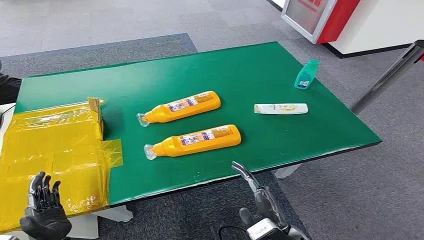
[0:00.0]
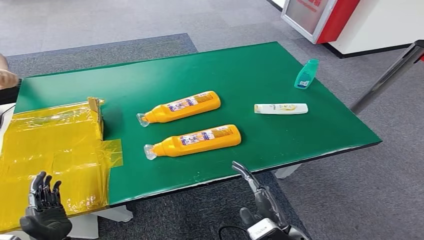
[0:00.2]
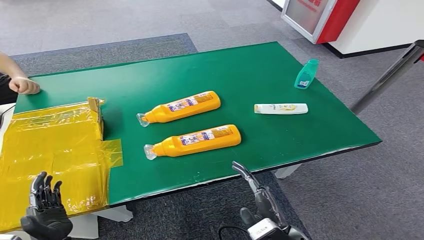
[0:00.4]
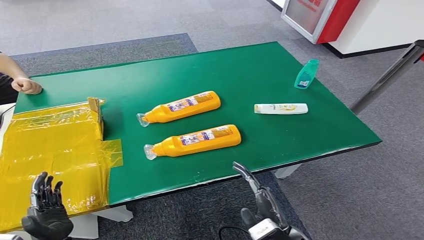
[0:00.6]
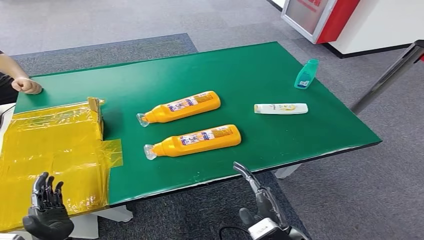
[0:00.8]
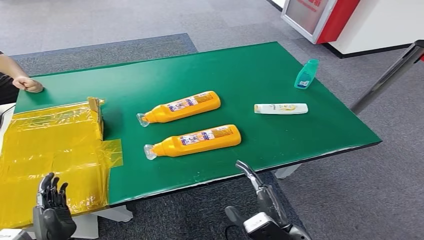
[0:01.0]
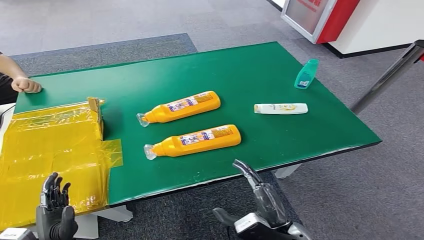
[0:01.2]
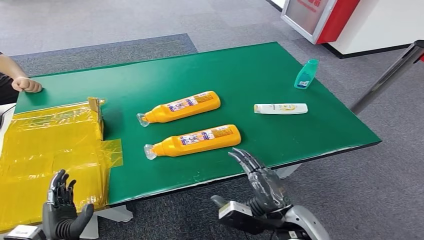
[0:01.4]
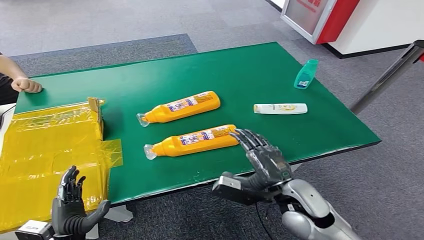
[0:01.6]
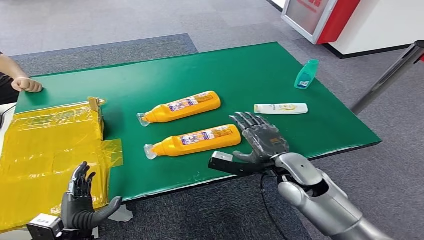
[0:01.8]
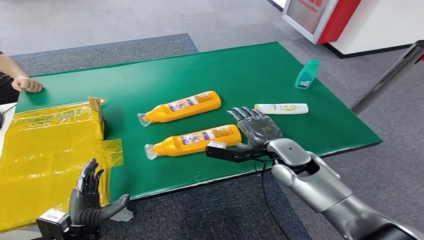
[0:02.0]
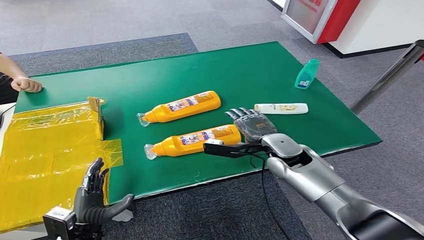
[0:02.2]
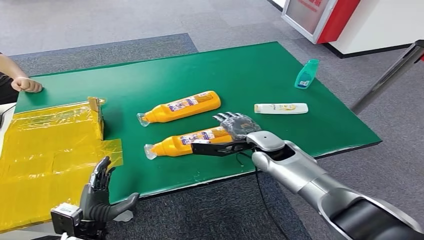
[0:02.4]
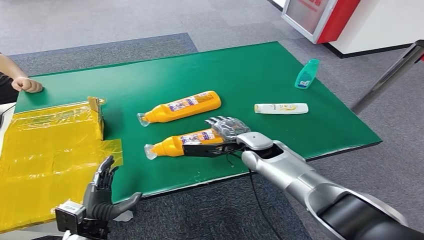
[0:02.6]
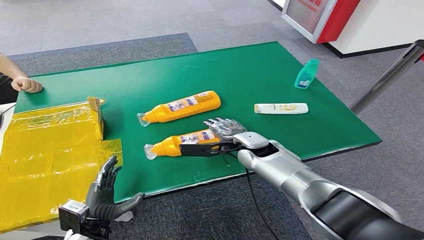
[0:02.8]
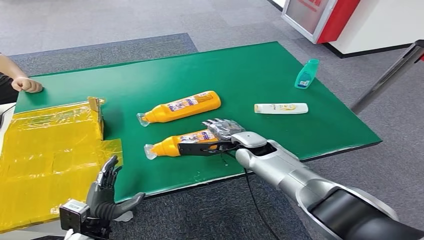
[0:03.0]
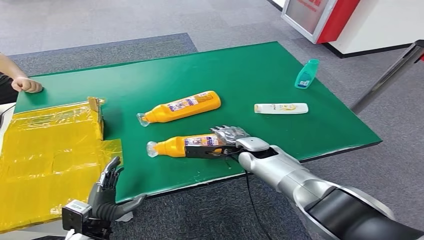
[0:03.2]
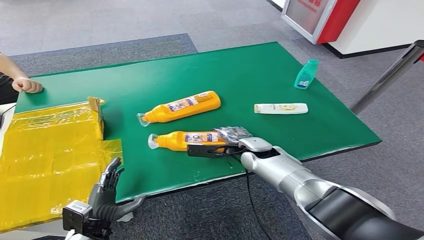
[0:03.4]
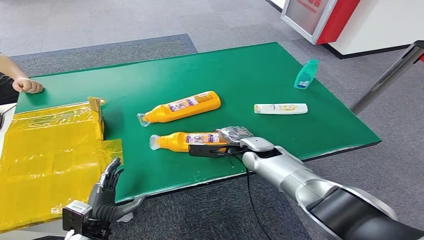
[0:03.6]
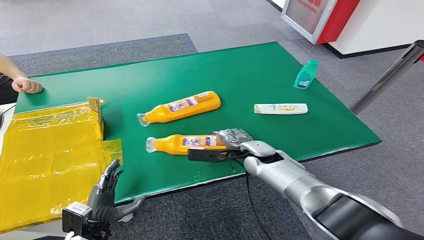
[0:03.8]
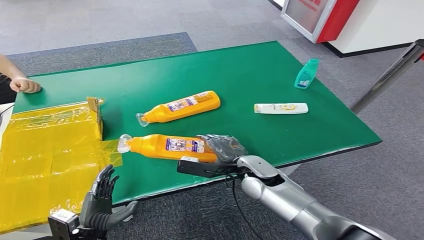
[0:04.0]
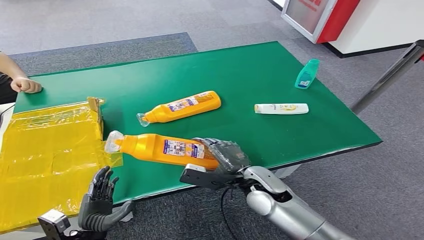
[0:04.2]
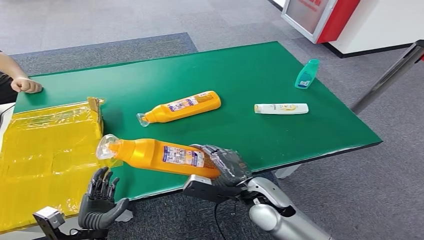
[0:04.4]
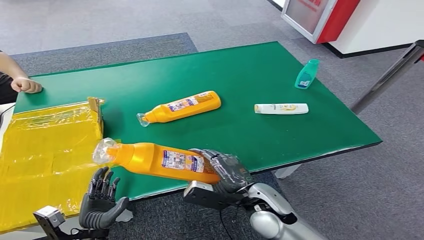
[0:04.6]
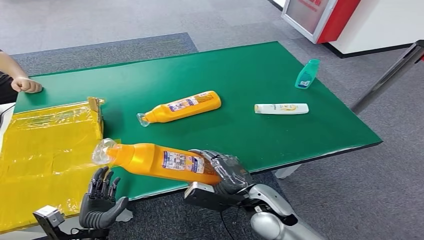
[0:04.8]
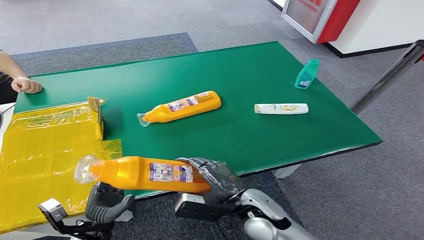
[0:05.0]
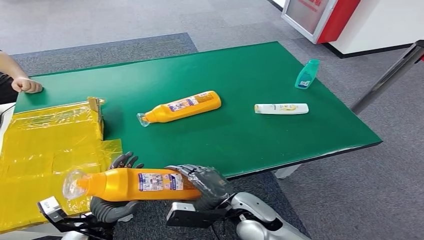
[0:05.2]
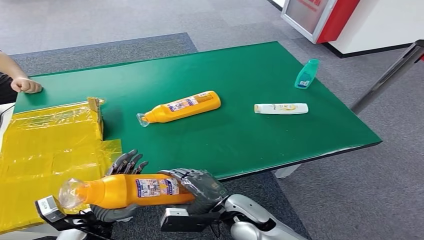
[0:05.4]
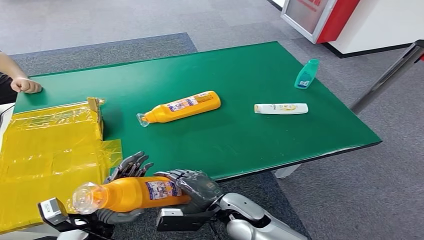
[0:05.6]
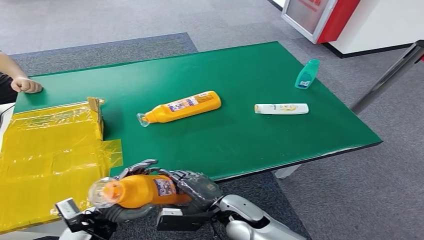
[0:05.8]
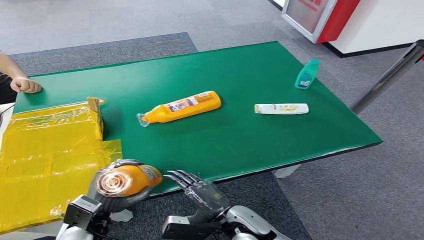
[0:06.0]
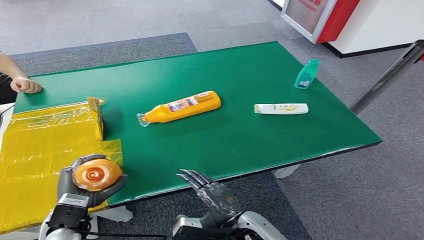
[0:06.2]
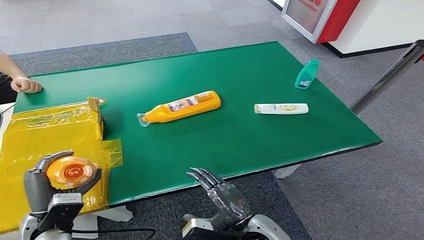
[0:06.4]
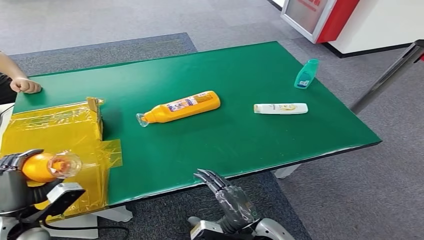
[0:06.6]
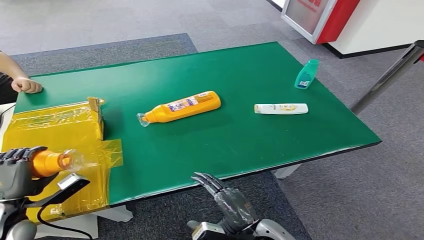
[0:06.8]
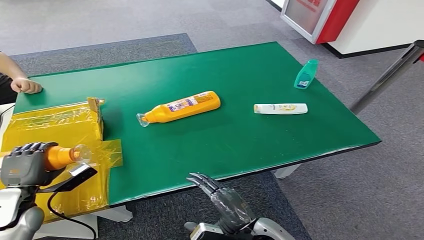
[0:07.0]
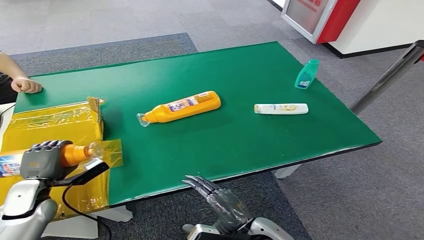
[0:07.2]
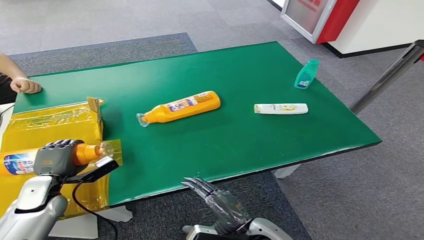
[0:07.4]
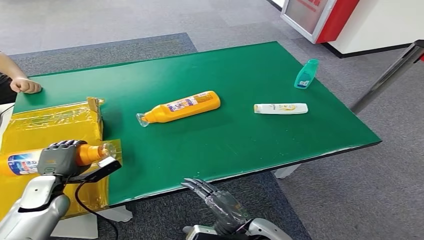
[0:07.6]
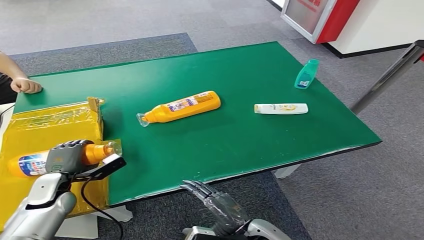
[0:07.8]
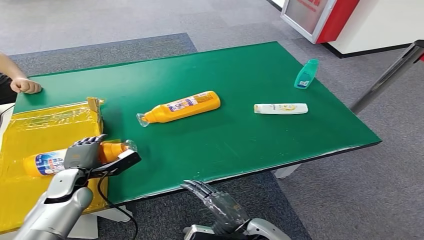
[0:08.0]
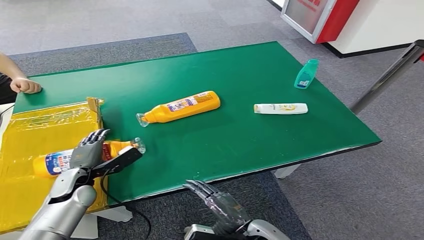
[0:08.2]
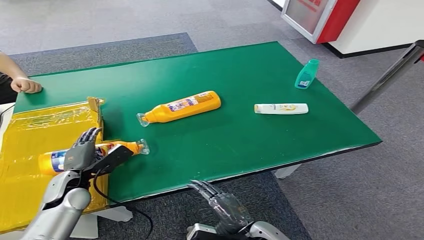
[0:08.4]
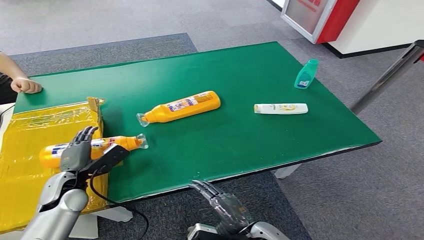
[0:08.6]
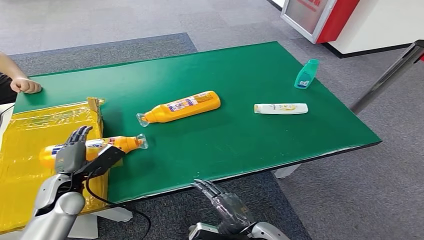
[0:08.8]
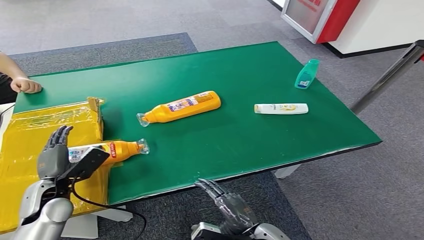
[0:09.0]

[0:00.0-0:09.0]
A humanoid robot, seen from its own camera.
Step, 0:00.0 to 0:04.8: Pick up the bottle from the table.
Step, 0:05.0 to 0:09.0: Turn the bottle to the front side.
0:01.6 to 0:03.0: The left hand moves approximately 5 cm; the right hand is displaced forward and to the left by some 20 cm.
0:03.0 to 0:04.4: The right hand shifts some 15 cm backward.
0:04.4 to 0:06.0: The right hand heads backward and downward, covering about 10 cm, while the left hand shifts approximately 5 cm upward.
0:06.0 to 0:07.6: The right hand changes place by some 5 cm; the left hand goes approximately 15 cm to the left and forward.
0:07.6 to 0:09.0: The left hand moves roughly 5 cm.

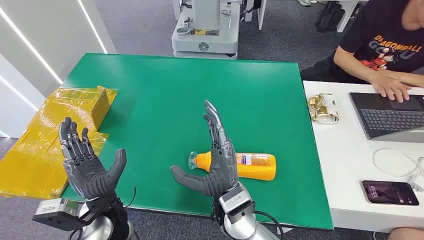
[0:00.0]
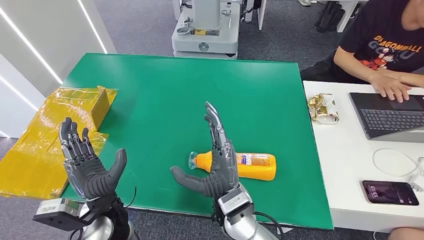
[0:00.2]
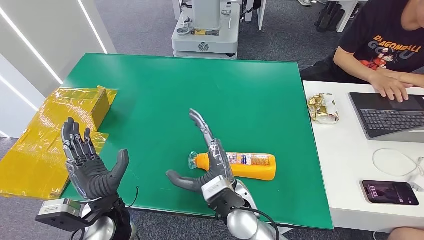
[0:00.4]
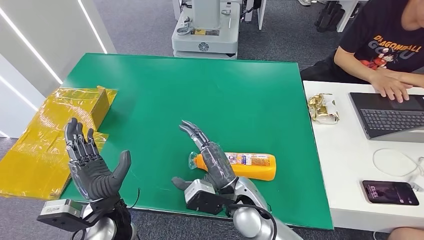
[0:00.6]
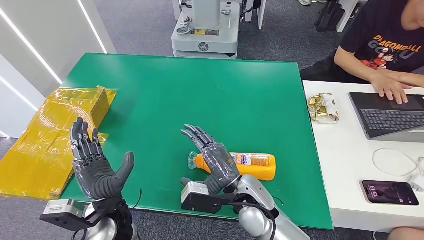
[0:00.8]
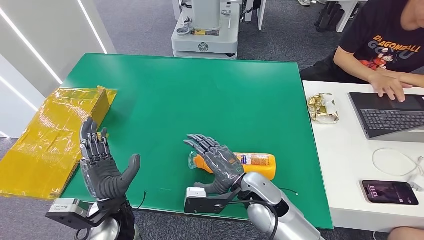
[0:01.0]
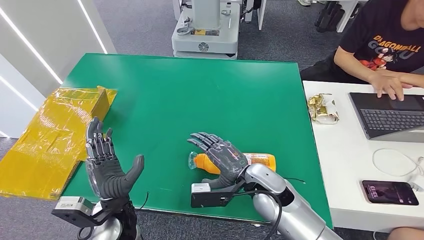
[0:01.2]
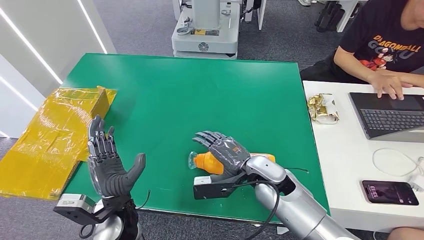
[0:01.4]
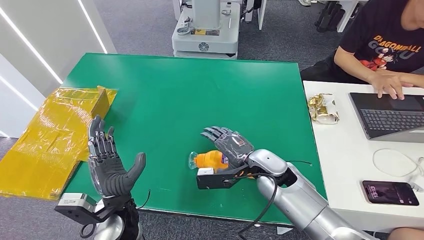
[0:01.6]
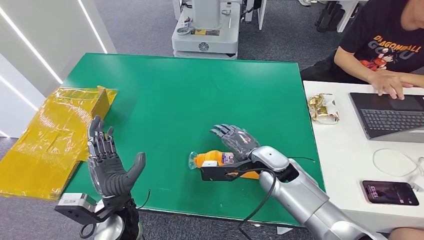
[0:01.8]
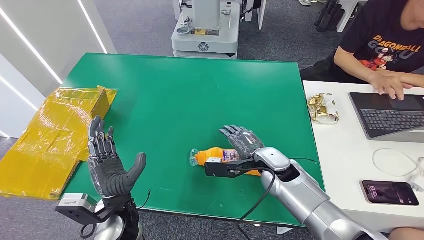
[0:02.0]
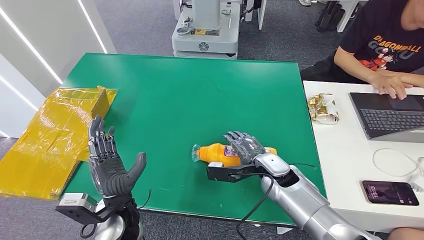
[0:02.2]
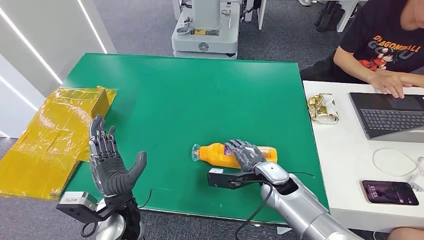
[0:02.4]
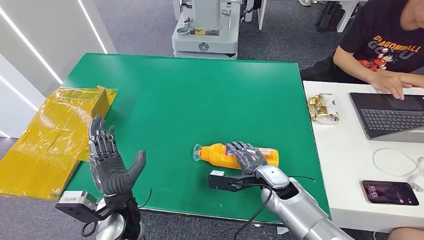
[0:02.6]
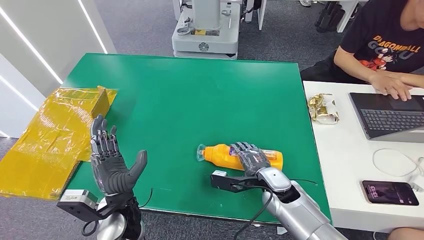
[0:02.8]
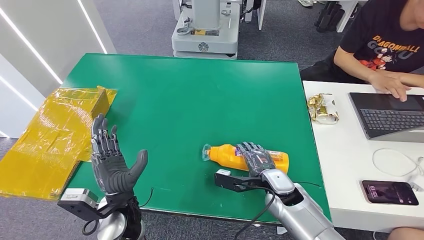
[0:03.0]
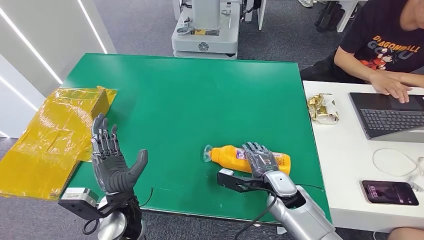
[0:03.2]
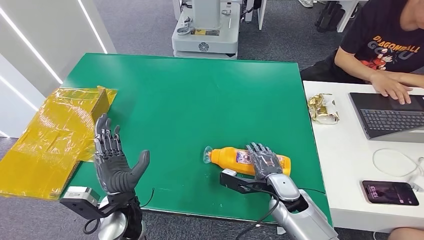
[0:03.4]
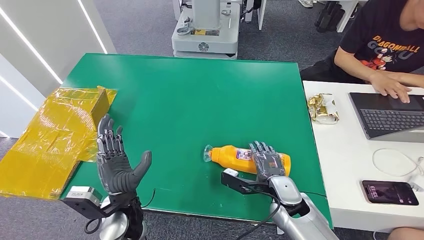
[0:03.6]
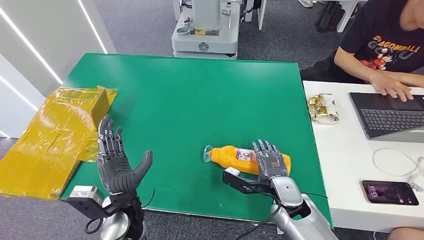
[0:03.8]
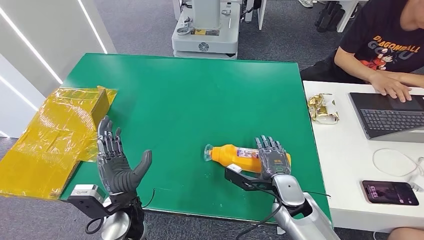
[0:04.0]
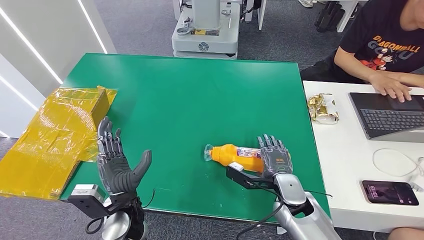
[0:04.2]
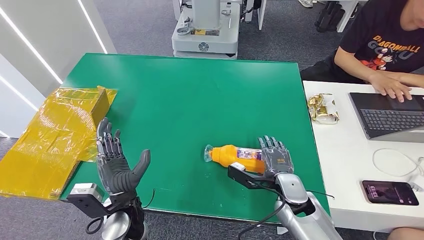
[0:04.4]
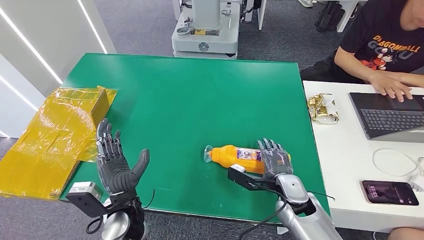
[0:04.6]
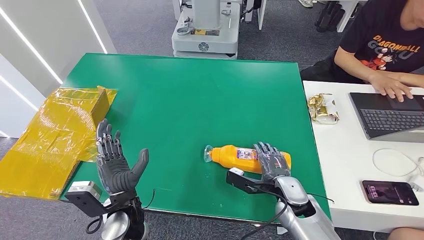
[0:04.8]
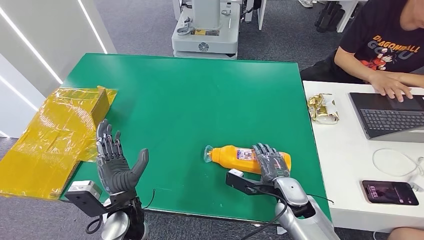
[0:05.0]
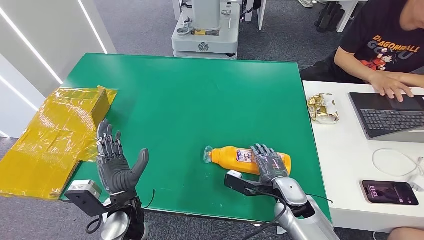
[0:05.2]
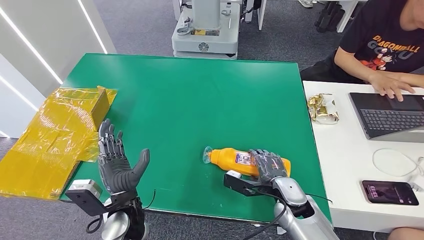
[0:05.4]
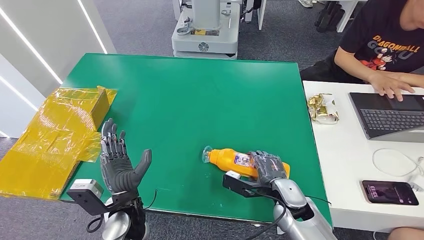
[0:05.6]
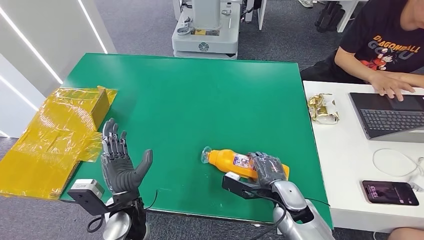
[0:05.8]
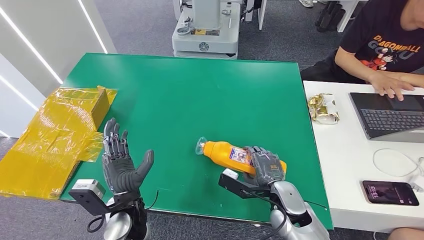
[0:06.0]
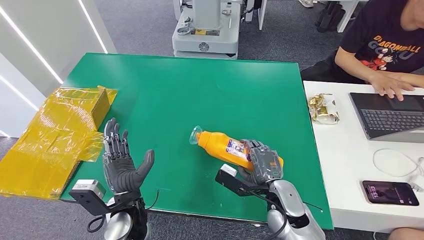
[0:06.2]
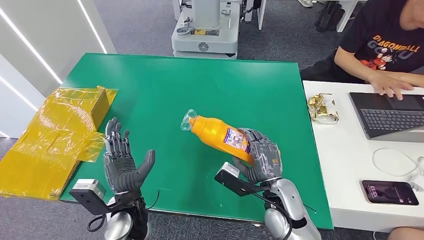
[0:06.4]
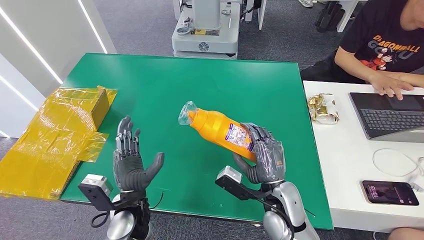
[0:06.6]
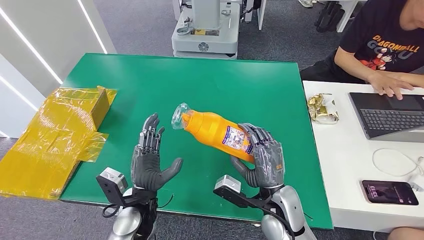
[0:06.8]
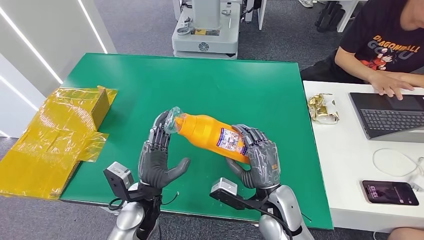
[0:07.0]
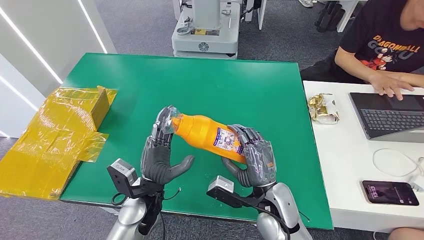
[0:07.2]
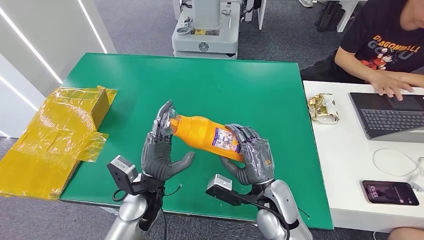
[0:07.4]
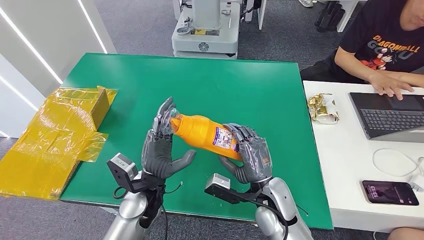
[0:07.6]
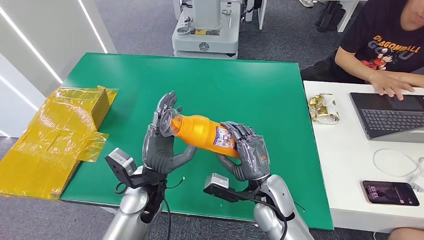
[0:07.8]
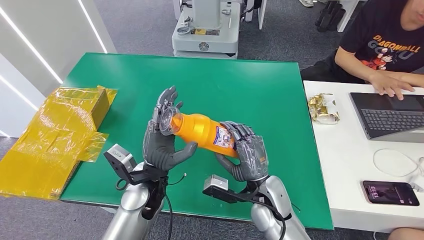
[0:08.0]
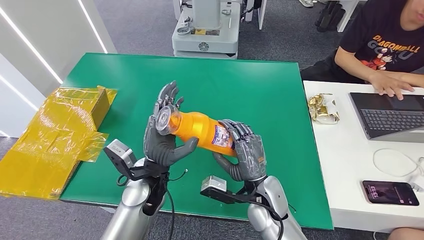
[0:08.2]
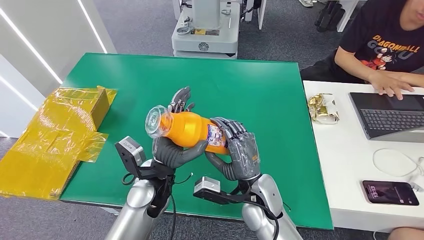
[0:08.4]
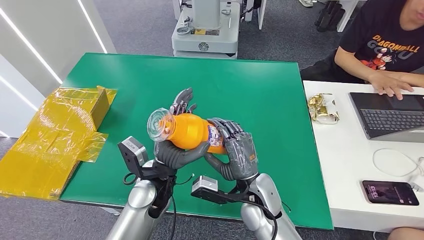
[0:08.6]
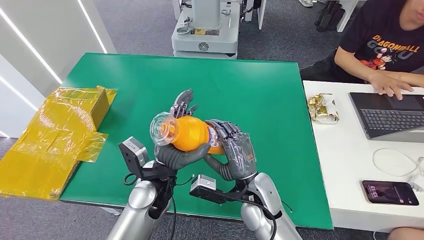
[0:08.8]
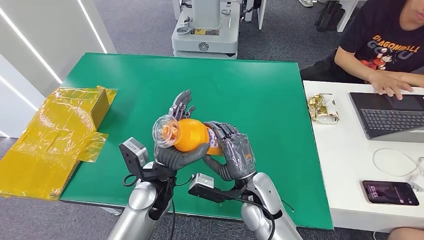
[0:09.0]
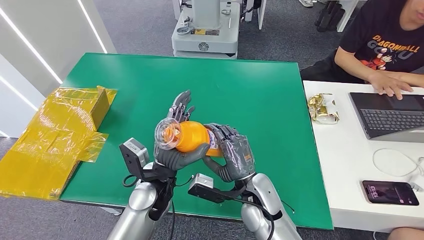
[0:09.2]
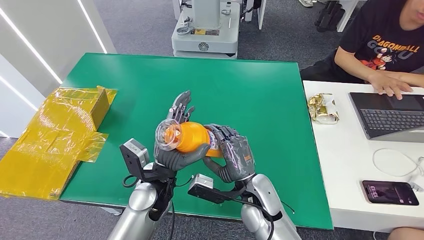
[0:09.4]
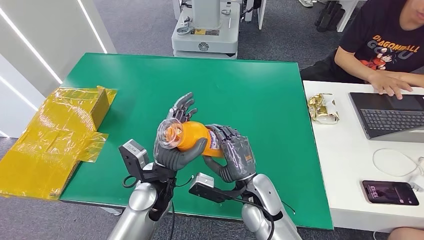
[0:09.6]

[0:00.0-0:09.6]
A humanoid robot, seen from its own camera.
Step, 0:00.0 to 0:07.0: Pick up the bottle from the table.
0:01.6 to 0:03.2: The right hand heads downward, covering about 5 cm.
0:03.2 to 0:04.8: The hands make only small movements.
0:04.8 to 0:06.4: The right hand ends up about 5 cm from where it was.
0:06.4 to 0:08.0: The left hand travels forward by some 5 cm.
0:08.0 to 0:09.6: The hands make only small movements.
